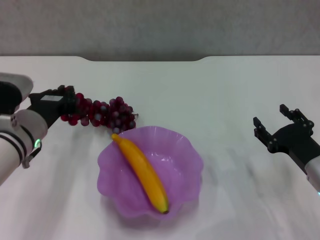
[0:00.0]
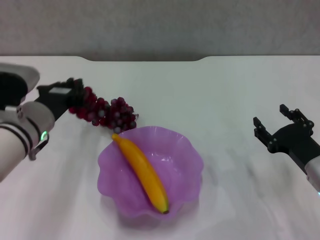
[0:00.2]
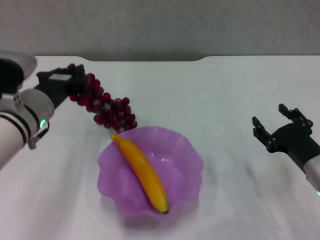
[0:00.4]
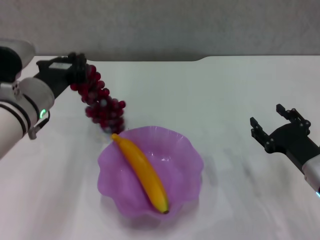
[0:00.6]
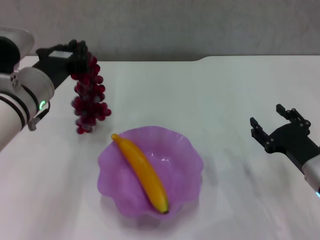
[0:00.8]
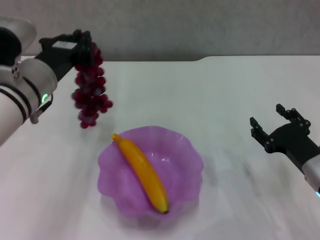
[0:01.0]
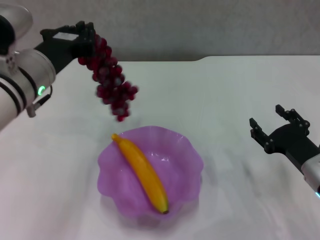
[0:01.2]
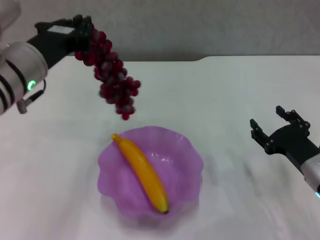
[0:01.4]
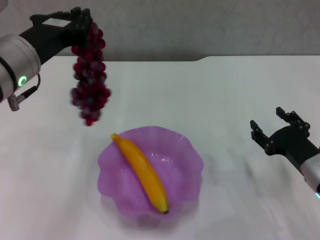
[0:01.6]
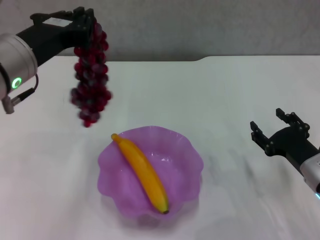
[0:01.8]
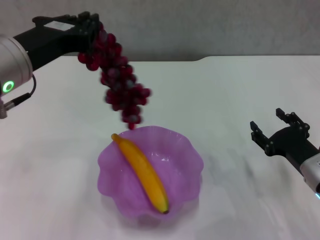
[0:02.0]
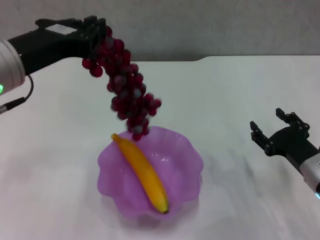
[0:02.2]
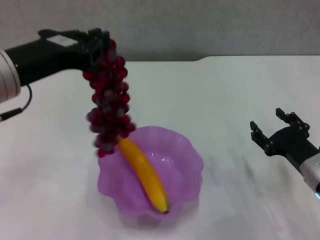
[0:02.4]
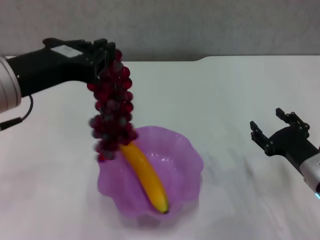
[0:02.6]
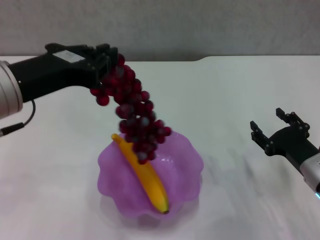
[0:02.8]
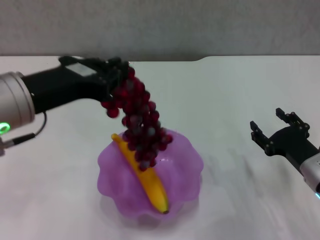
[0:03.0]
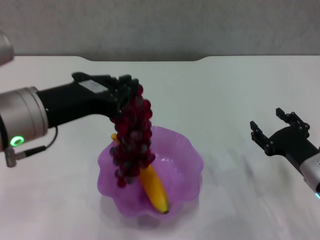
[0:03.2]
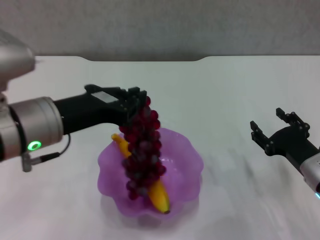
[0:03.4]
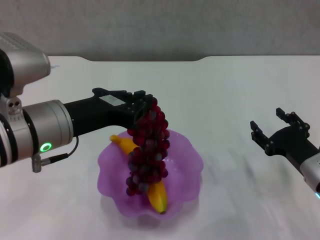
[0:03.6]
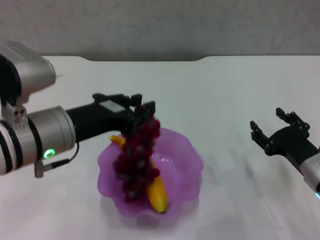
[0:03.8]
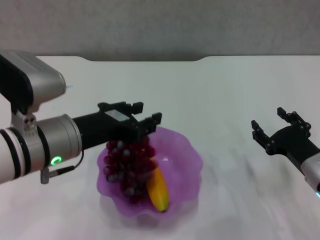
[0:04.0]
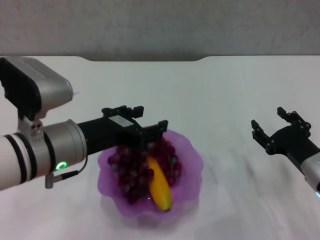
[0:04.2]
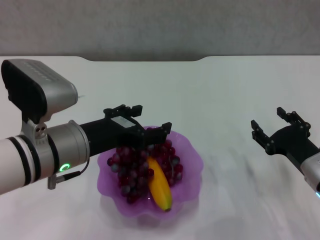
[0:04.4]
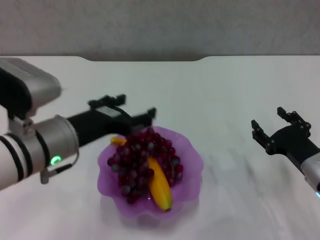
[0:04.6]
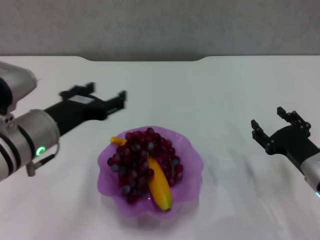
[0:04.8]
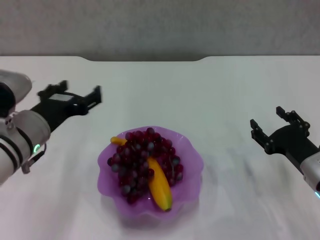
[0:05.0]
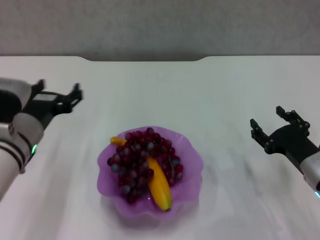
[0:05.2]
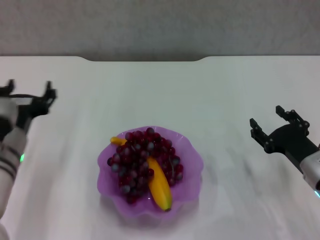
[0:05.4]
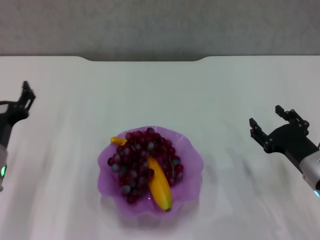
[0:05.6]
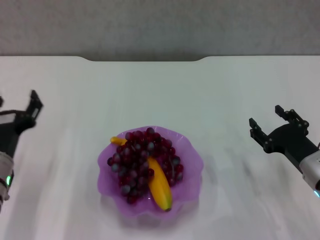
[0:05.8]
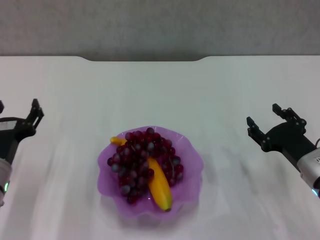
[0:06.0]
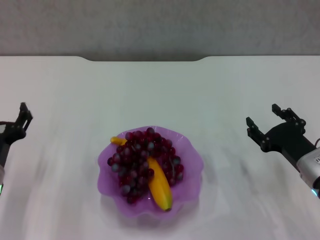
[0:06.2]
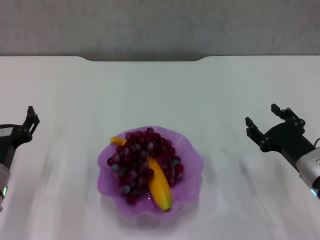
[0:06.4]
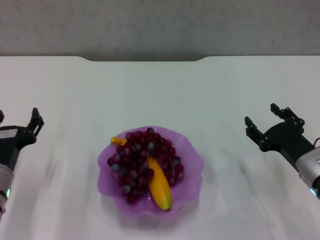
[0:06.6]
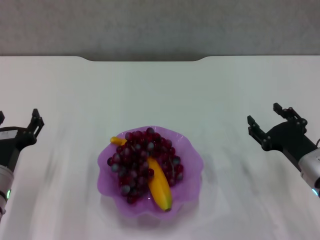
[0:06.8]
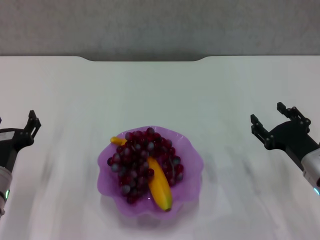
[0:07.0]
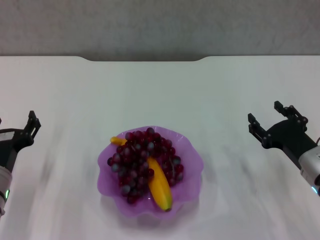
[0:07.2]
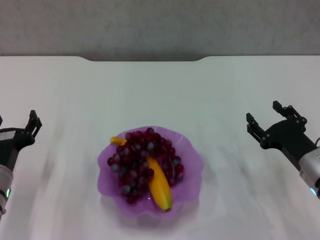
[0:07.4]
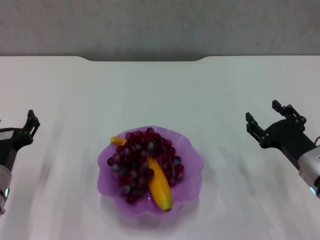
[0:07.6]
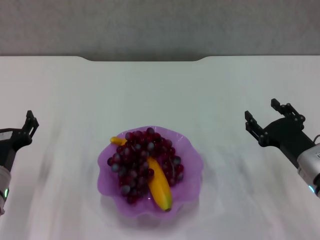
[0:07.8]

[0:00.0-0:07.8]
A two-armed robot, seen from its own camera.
Step, 0:00.0 to 0:04.4: Place the grape in the purple plate with left gripper.
0:00.0 to 0:01.6: The left gripper goes some 15 cm upward.
0:01.6 to 0:03.2: The left gripper travels backward by approximately 5 cm.
0:03.2 to 0:04.6: The left gripper moves downward, approximately 5 cm, and opens up.
0:04.6 to 0:06.2: The left gripper heads downward and to the left, covering some 15 cm.
0:06.2 to 0:07.8: Both grippers stay about where they are.
